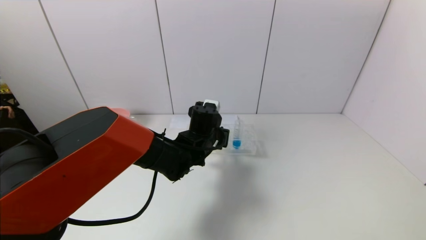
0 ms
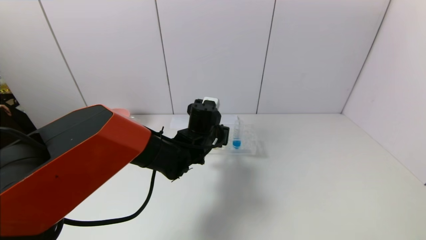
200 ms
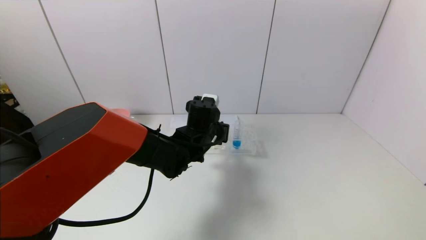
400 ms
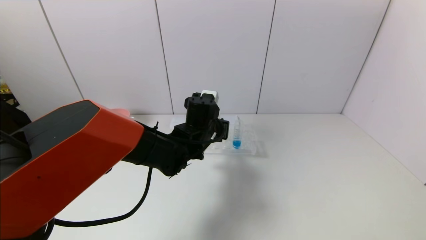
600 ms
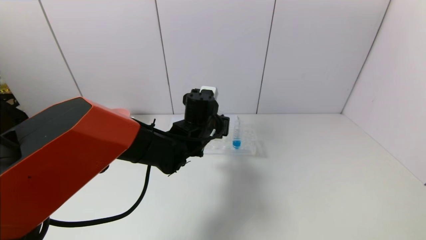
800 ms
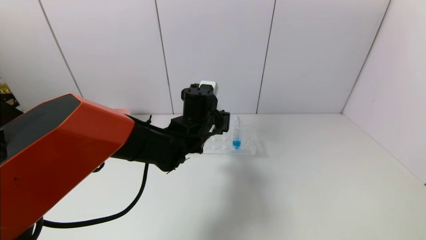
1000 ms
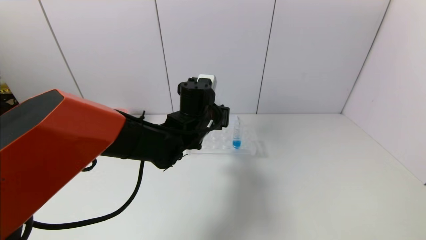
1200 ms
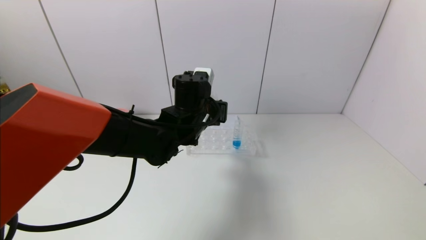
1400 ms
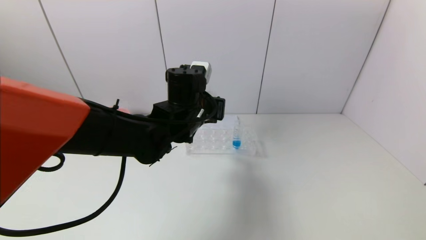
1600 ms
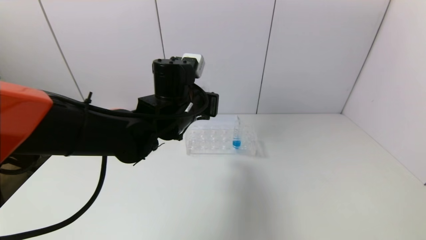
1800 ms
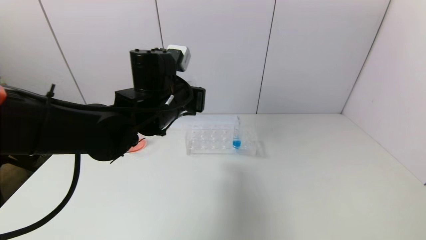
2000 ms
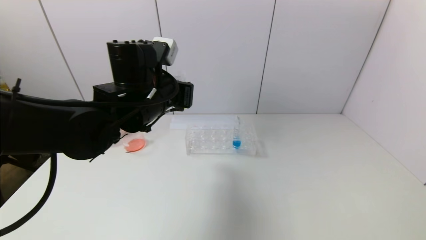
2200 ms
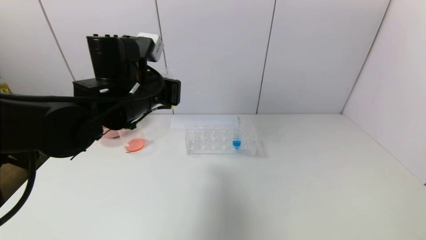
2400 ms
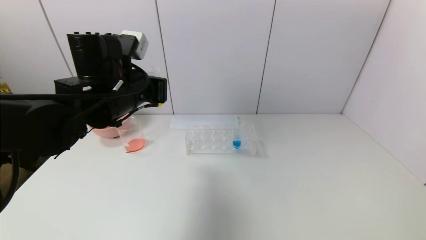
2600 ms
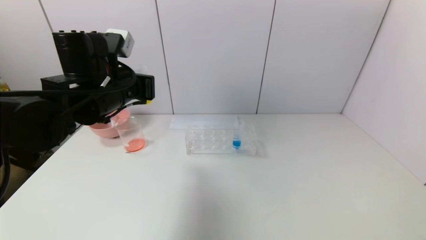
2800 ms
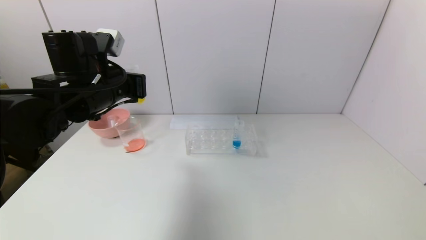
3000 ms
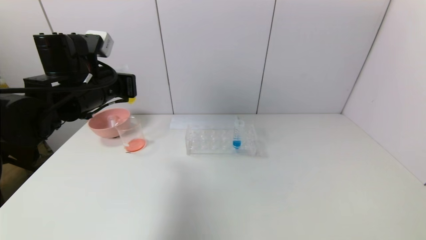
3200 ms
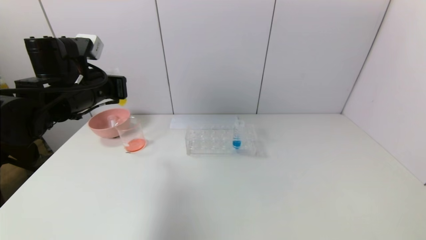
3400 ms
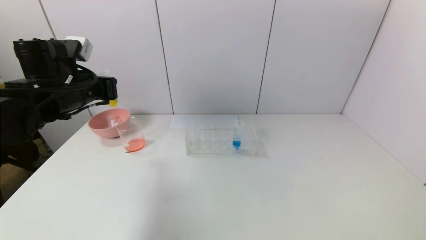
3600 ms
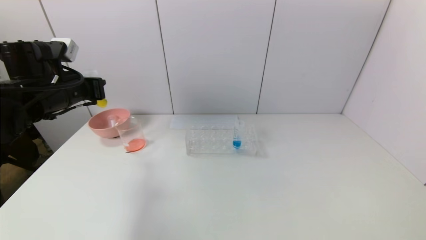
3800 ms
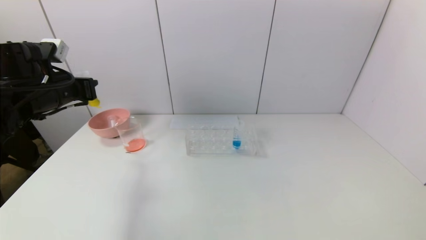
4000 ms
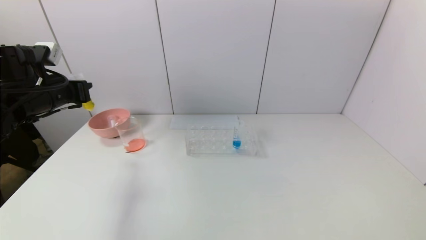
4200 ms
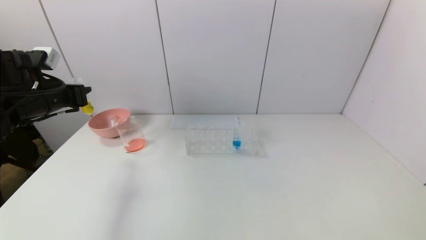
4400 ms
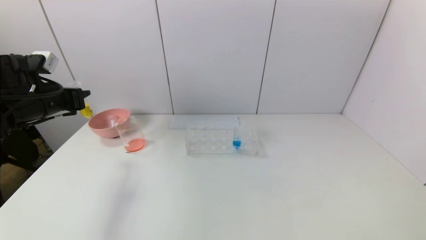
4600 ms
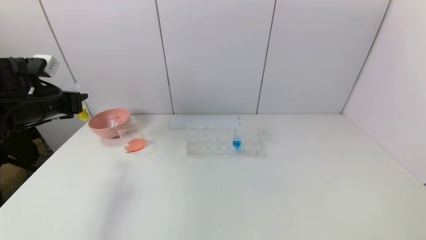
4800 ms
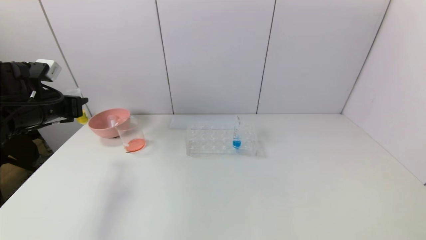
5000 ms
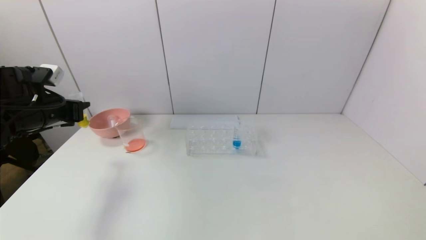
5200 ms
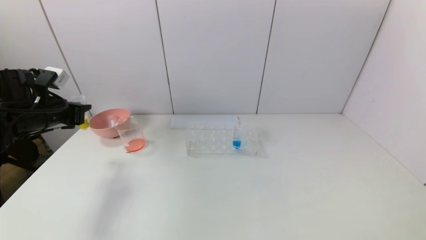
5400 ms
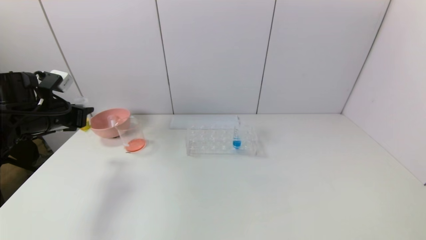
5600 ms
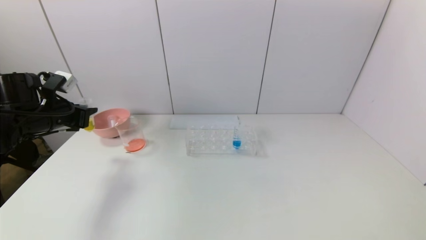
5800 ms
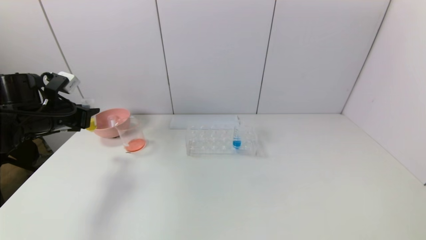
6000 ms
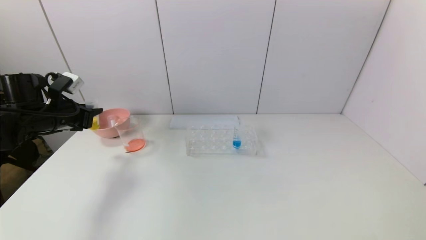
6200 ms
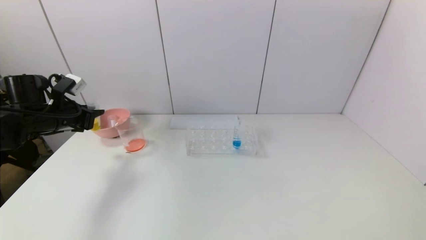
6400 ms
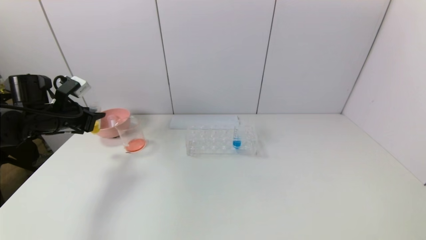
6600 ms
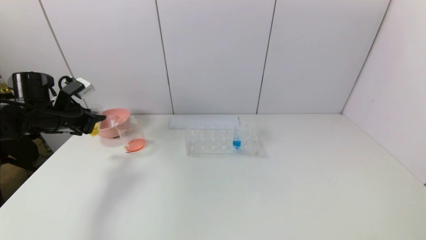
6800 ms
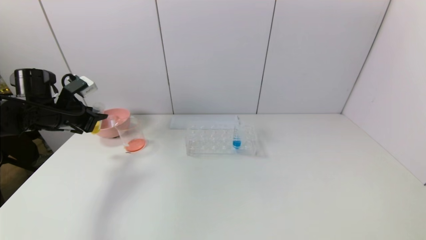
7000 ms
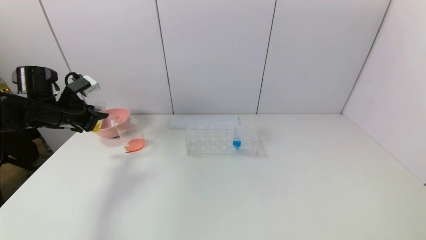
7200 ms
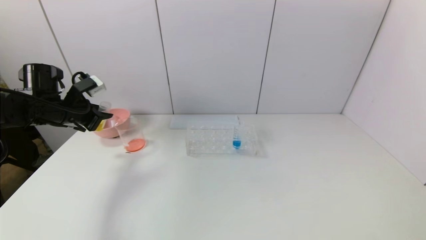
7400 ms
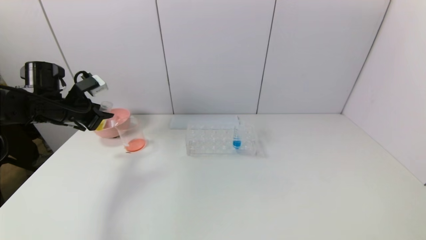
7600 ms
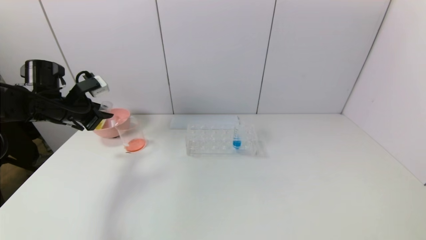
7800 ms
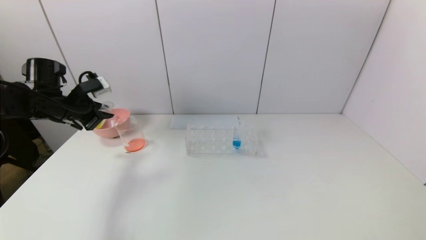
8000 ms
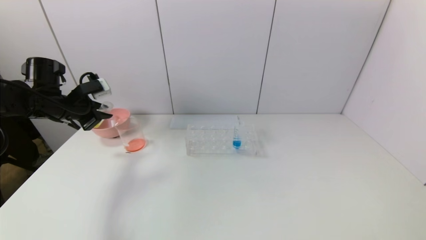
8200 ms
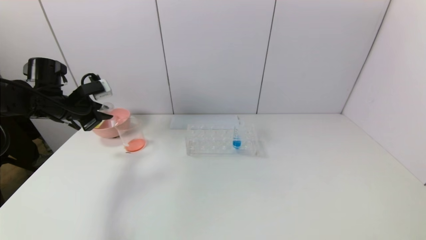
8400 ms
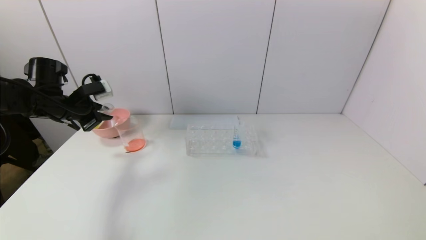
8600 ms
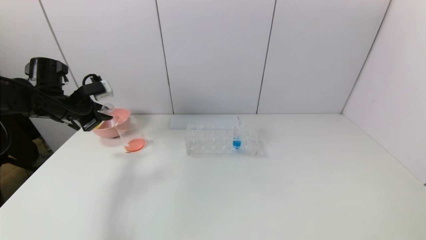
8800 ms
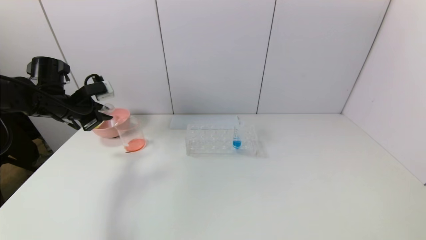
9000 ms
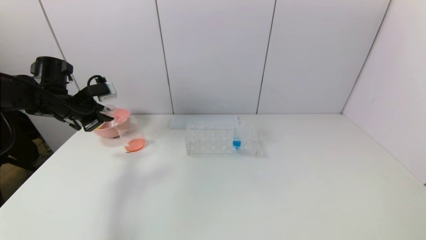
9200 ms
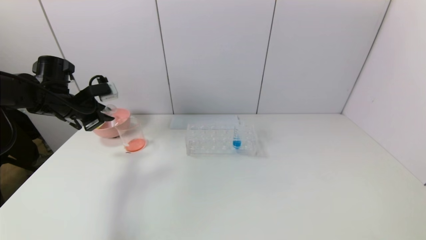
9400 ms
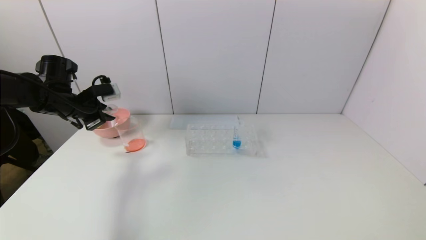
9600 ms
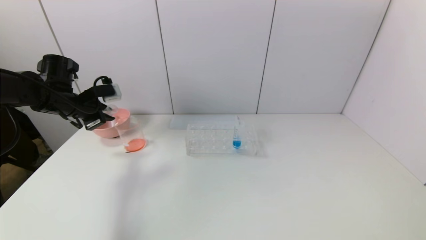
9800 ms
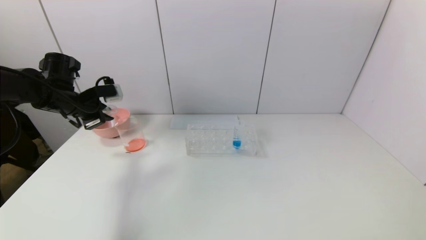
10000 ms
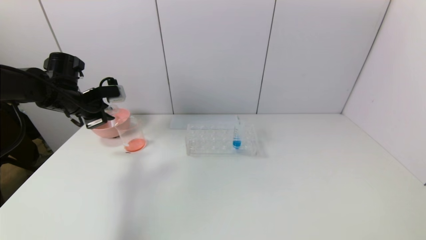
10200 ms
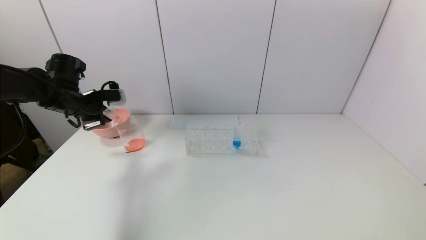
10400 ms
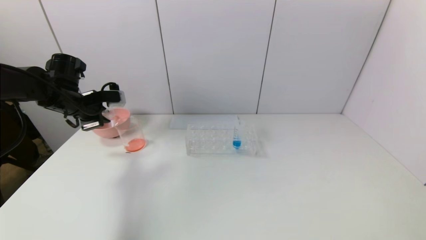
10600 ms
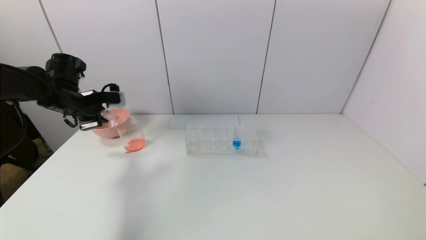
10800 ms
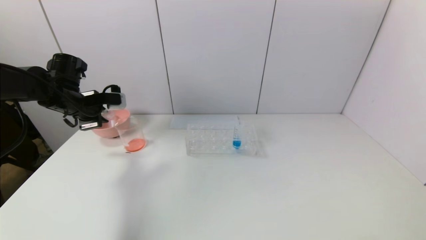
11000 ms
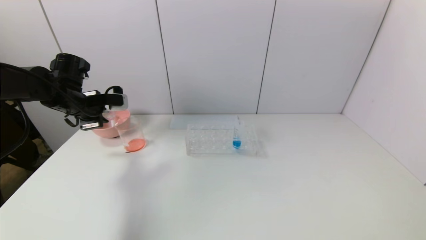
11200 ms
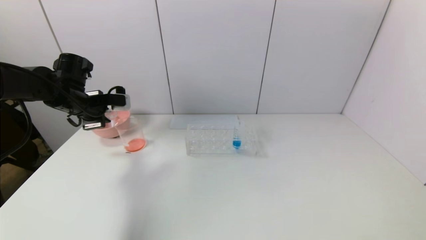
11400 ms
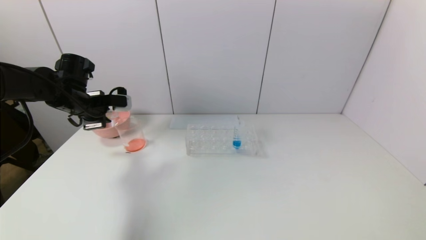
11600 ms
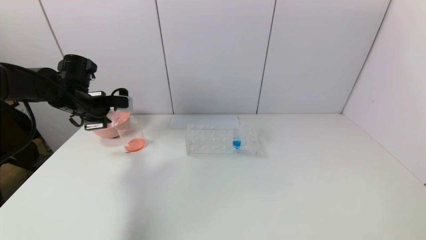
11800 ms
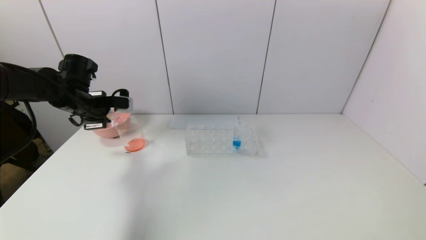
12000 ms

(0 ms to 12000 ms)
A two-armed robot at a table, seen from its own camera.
Task of the whole recording: pick up the test tube with yellow pigment and the test tube with red pigment by grippers and pour them into the beaker.
0 ms - 1600 ms: The left gripper is displaced upward by approximately 10 cm.
1600 ms - 3000 ms: The left gripper heads to the left, covering approximately 15 cm.
3000 ms - 4400 ms: The left gripper travels to the left by approximately 15 cm.
4400 ms - 6000 ms: The left gripper ends up approximately 5 cm from where it was.
7600 ms - 9000 ms: The grippers stay close to where they were, moving slightly.
9000 ms - 10400 ms: The grippers move only a little.
10400 ms - 12000 ms: There are only small adjustments of the grippers.

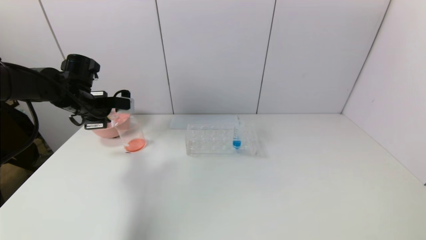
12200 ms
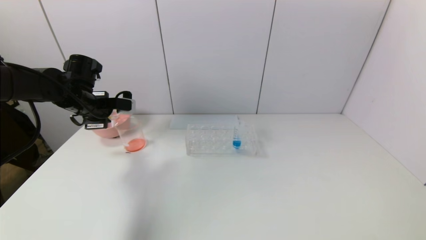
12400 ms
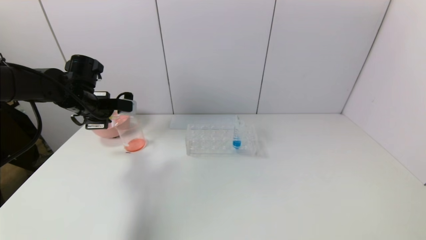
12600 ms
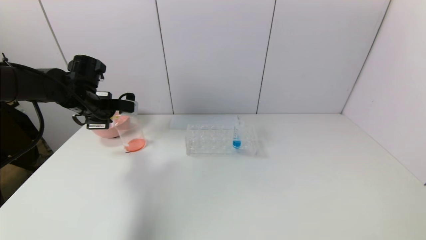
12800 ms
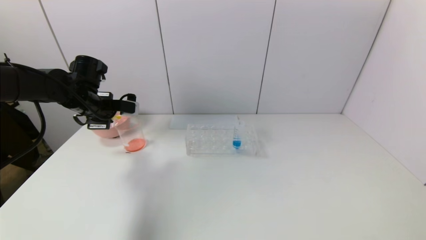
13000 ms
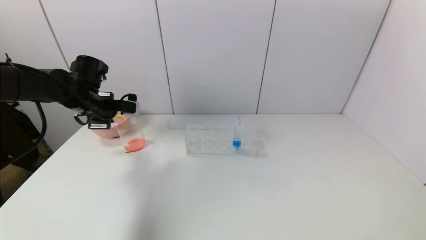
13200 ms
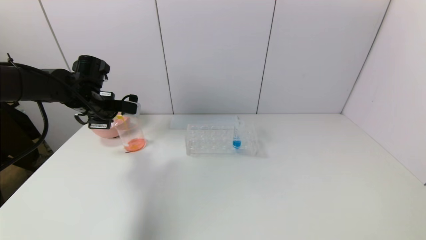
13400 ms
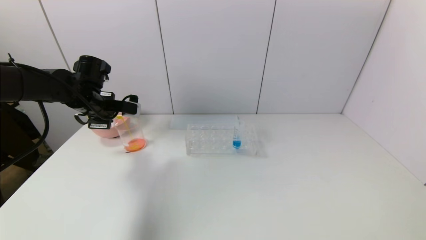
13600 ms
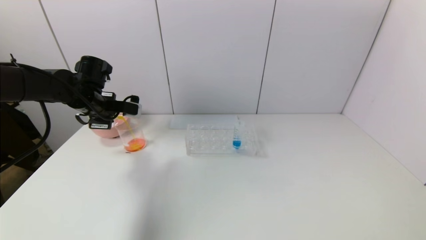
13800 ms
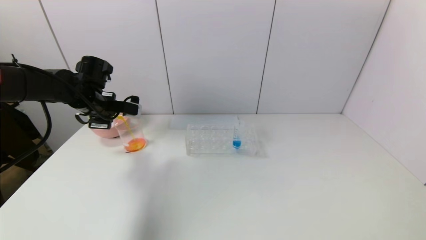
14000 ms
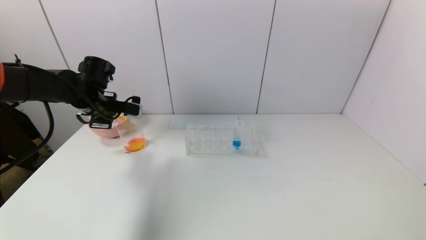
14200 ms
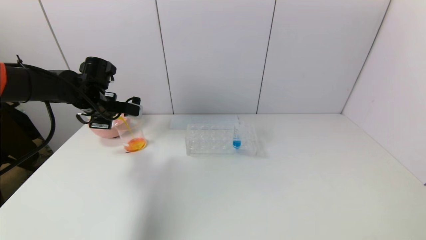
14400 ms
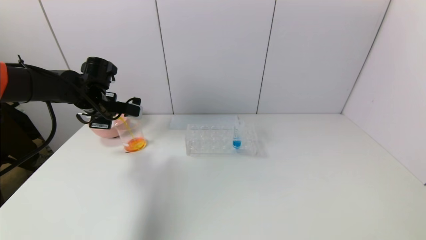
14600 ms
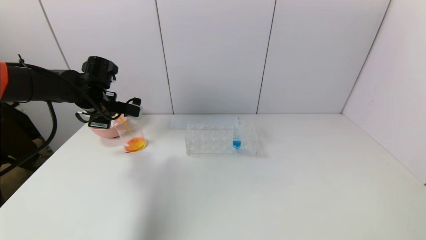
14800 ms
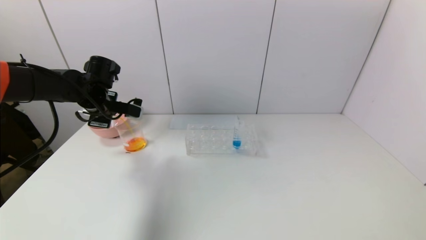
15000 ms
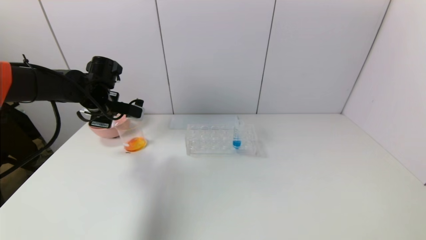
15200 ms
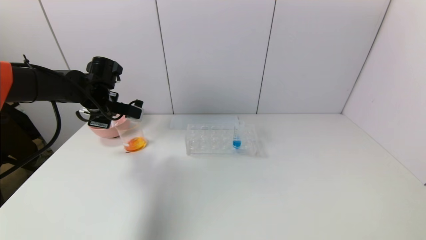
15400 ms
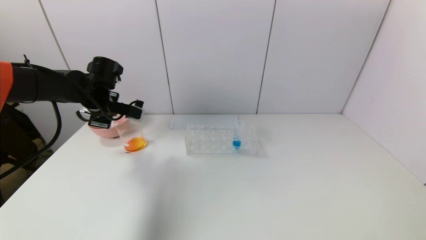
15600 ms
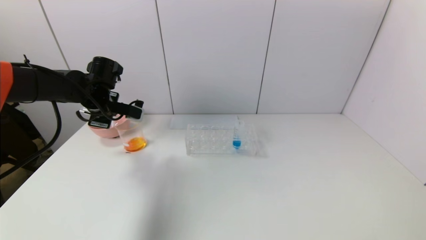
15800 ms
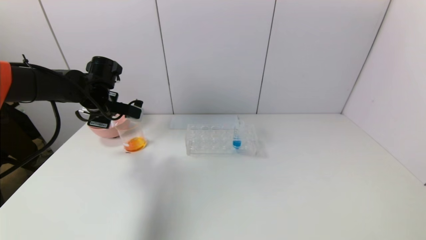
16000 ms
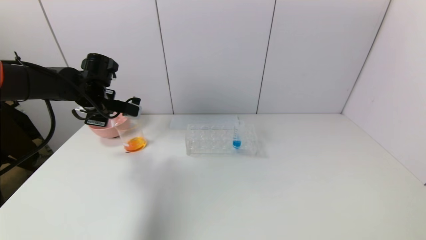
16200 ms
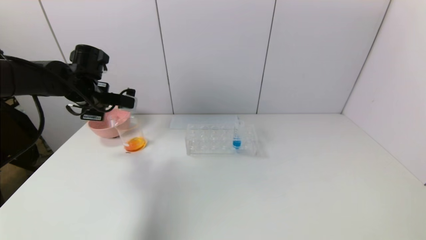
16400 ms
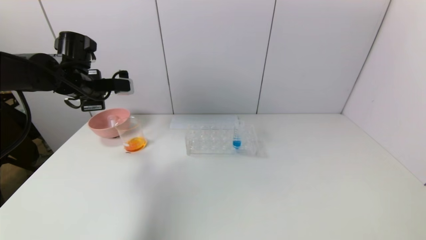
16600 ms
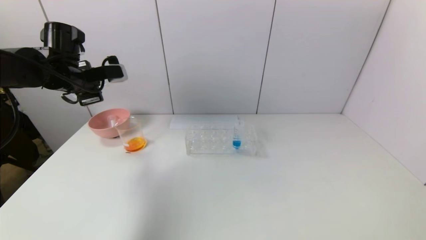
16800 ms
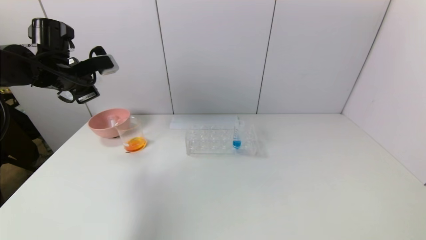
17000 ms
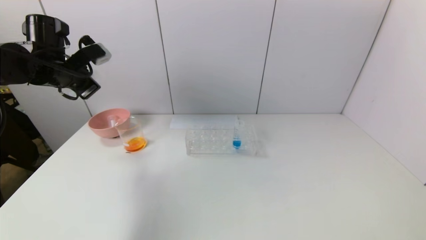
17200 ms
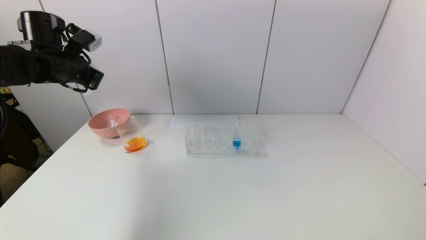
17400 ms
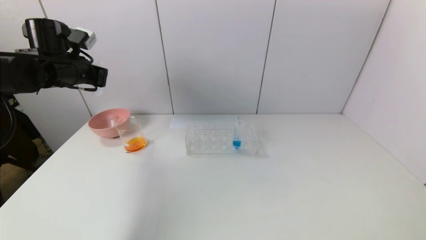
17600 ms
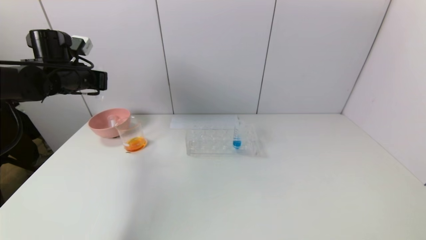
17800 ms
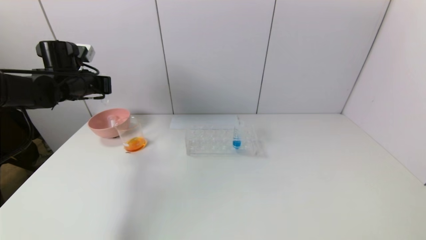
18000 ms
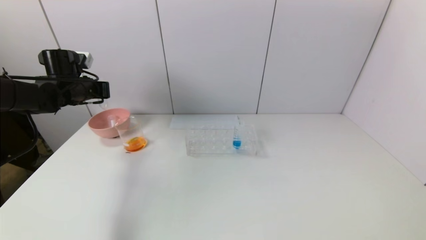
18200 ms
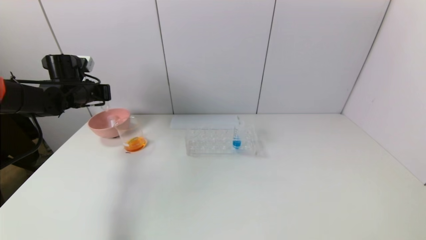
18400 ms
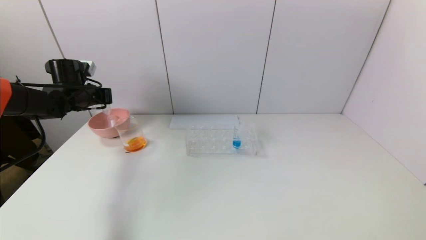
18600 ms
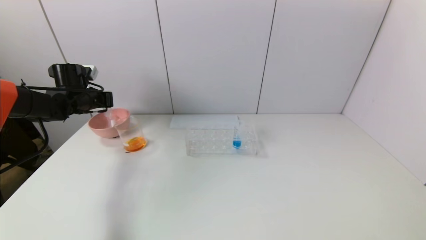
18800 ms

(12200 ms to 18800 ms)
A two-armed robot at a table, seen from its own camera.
Task of the whole recording: pick up the test tube with yellow pigment and the test tube with red pigment by grippers and pour them into the beaker.
Step, 12200 ms - 15800 ms: Pour the yellow reagent into the graduated cylinder with the left gripper.
12200 ms - 13800 ms: The grippers stay close to where they were, moving slightly.
13800 ms - 15400 ms: The grippers stay close to where they were, moving slightly.
15400 ms - 17200 ms: The left gripper travels upward by roughly 10 cm.
17200 ms - 18800 ms: The left gripper travels downward and forward by roughly 10 cm.
